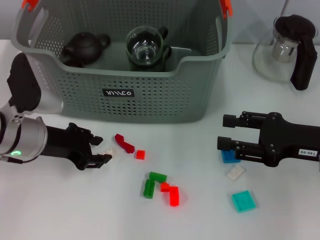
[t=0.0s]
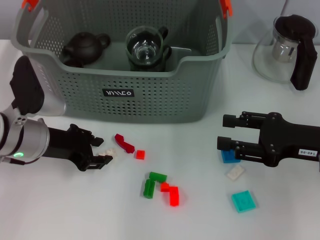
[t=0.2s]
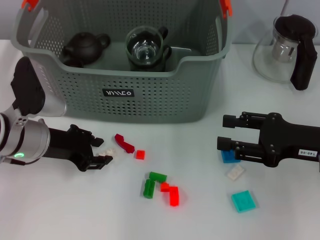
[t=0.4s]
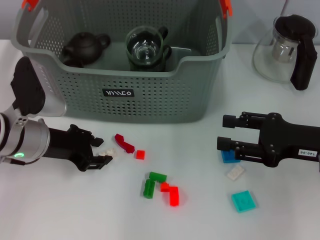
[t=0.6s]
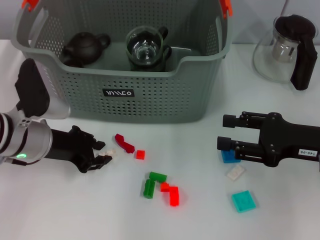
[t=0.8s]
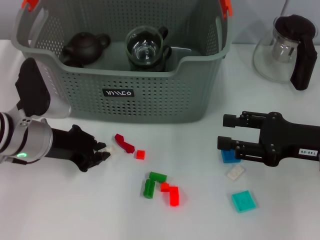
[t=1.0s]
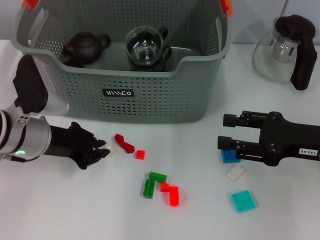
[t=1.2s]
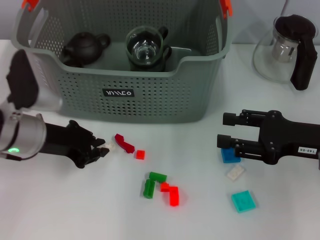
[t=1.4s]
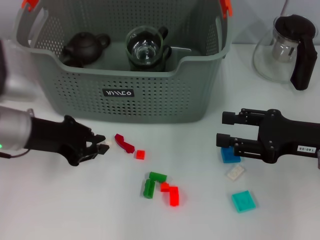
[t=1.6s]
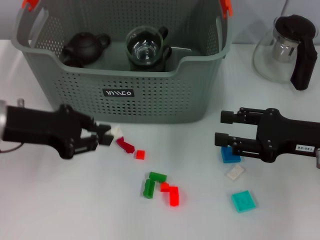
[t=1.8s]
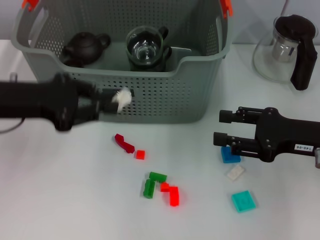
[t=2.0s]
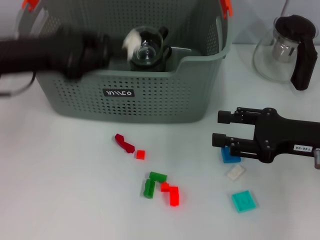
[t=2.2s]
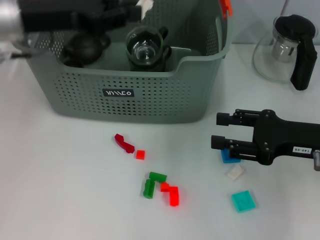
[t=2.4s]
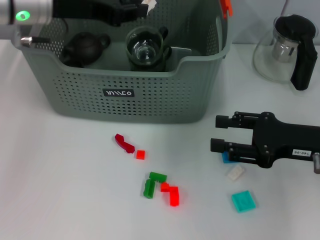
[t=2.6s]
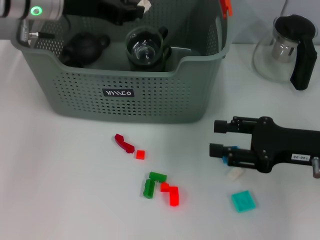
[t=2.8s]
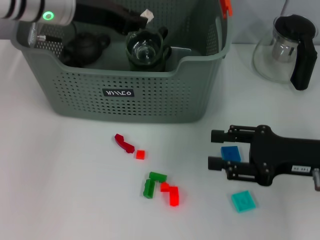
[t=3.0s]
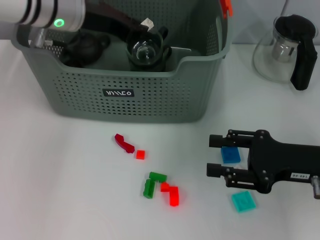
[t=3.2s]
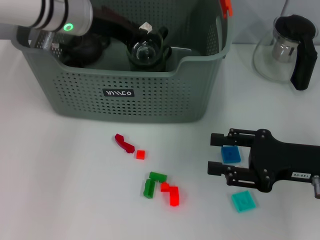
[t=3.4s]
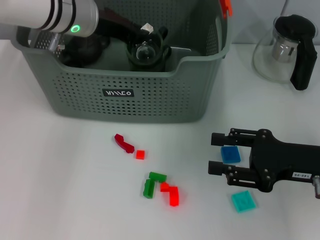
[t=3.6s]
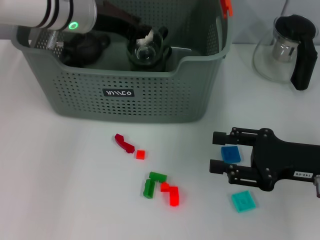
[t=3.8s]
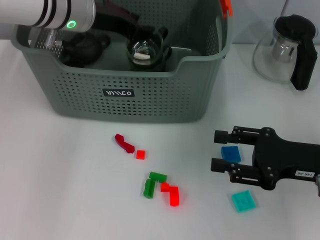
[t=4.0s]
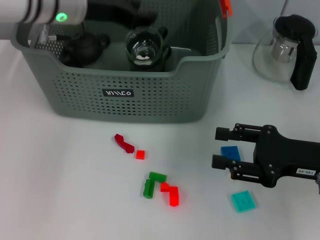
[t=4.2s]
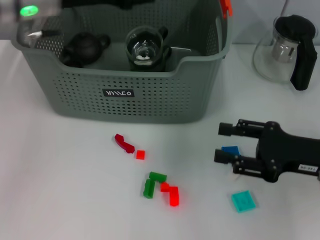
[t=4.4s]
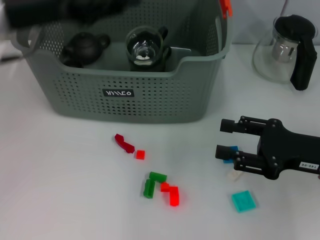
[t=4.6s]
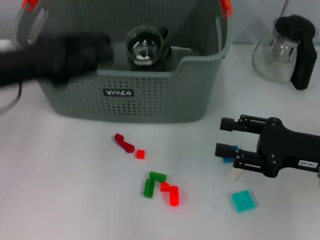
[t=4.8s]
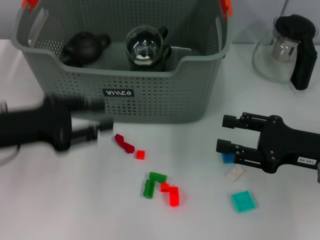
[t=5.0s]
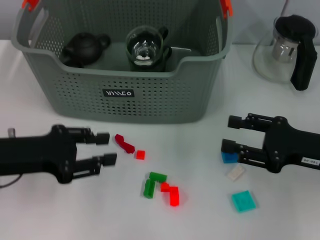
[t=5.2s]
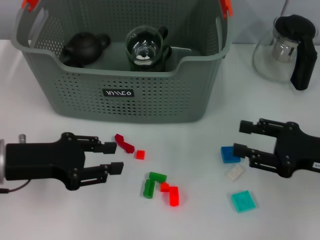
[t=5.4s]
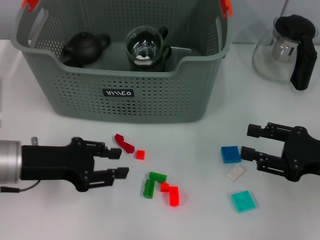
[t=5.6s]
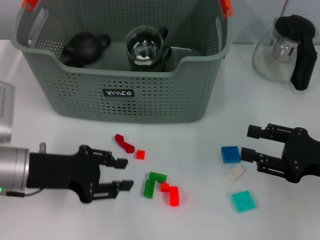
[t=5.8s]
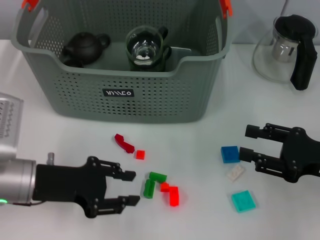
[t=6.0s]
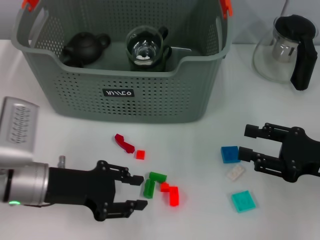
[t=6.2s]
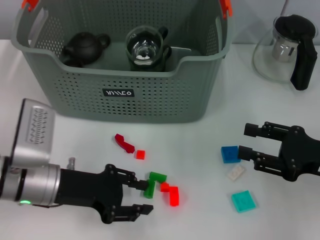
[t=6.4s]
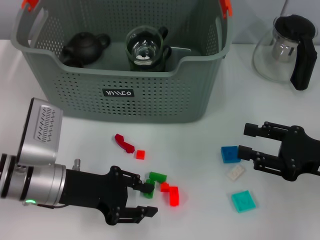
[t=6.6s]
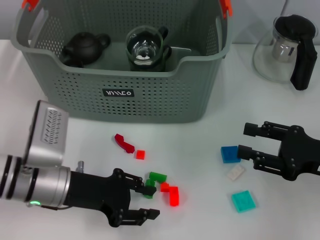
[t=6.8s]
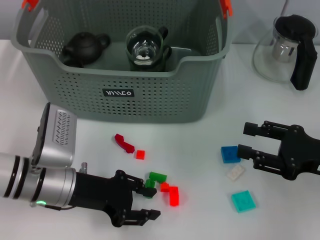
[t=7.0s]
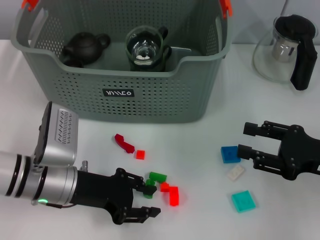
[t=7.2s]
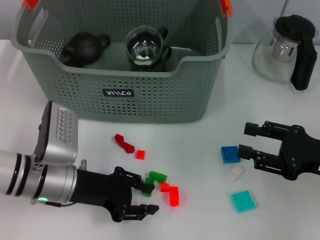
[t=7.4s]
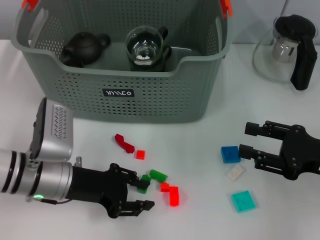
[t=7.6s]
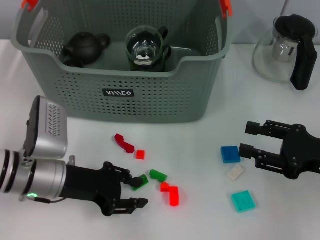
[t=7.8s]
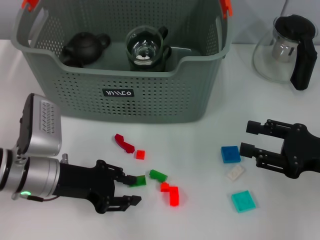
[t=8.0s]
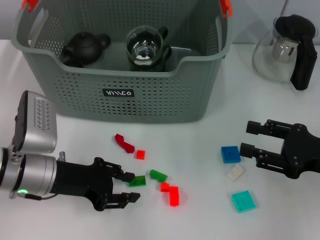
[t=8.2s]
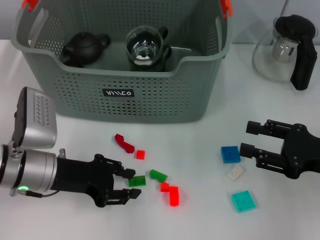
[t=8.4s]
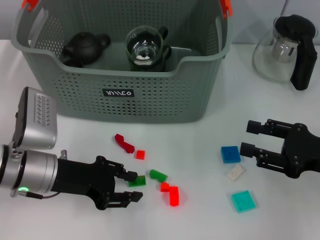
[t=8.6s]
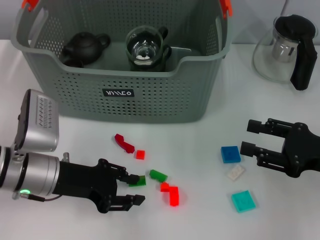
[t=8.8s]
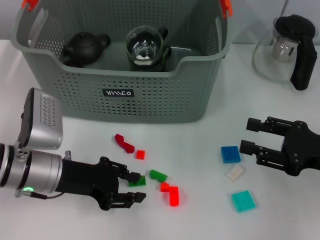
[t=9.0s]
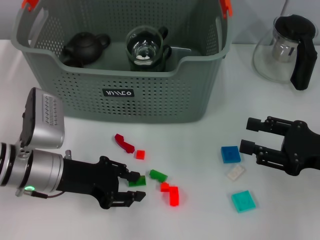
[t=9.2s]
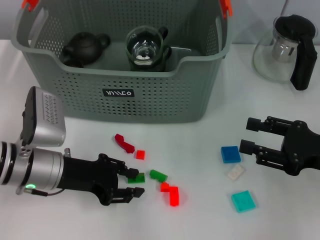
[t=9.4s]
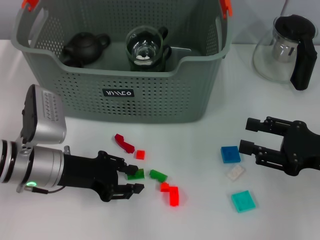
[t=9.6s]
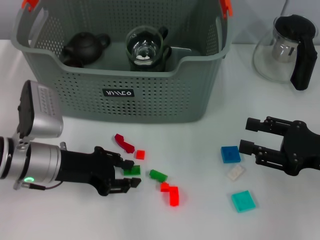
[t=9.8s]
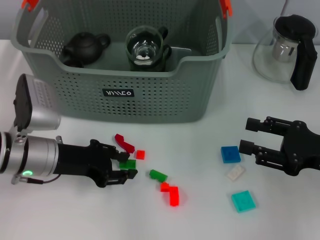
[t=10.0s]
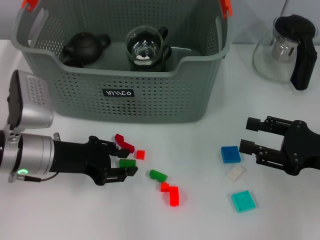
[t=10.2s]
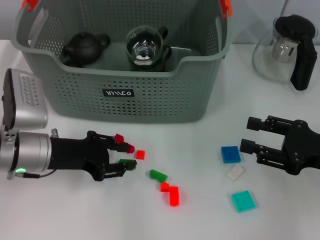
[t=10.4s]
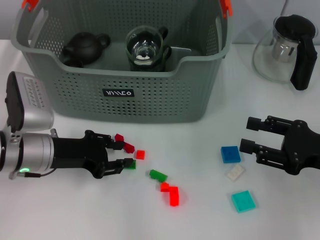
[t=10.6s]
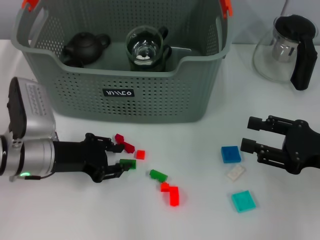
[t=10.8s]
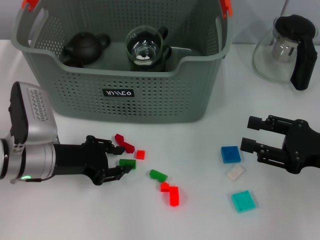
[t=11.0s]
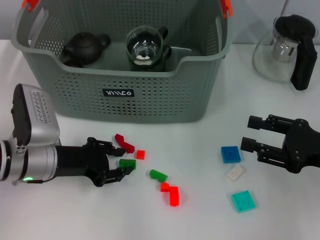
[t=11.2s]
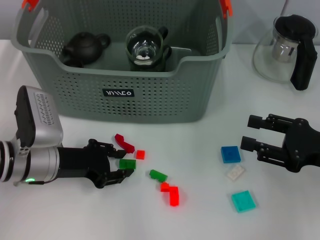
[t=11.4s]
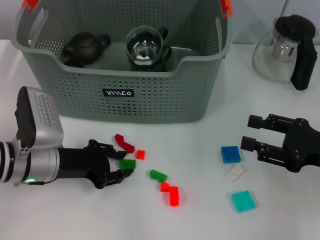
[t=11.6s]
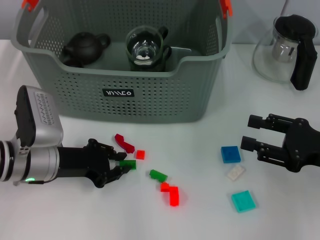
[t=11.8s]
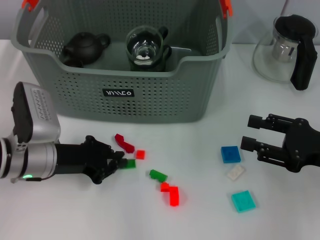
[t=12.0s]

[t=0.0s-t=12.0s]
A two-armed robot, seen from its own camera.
Task of the whole recording: pick up the teacup on the table and place it into the storage bin, pick up the block on the table and place it into the storage bin.
Step, t=1.2s to t=3.8s: Place the white block in the storage box with left gripper.
t=0.0s to t=1.6s: The left gripper closes up.
t=1.6s to t=3.0s: The left gripper shifts some 15 cm forward, upward and to the right.
t=3.0s to t=4.4s: The left gripper ends up approximately 5 cm from where it was, and opens up.
t=4.4s to t=6.0s: The left gripper is displaced downward and backward by roughly 20 cm.
t=6.0s to t=7.6s: The left gripper shifts by some 5 cm.
t=7.6s to t=12.0s: The grippers move only a little.

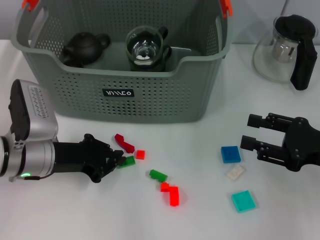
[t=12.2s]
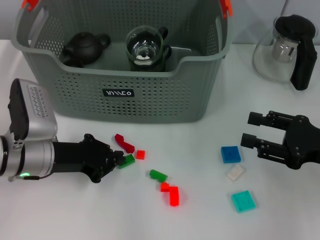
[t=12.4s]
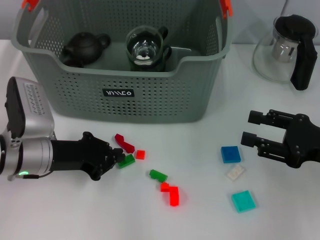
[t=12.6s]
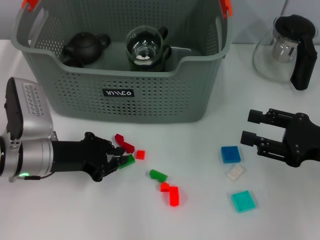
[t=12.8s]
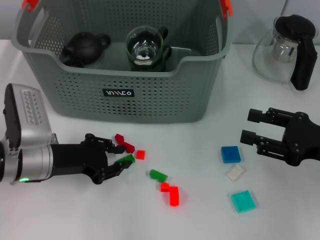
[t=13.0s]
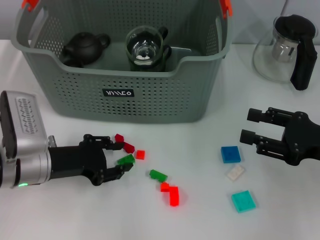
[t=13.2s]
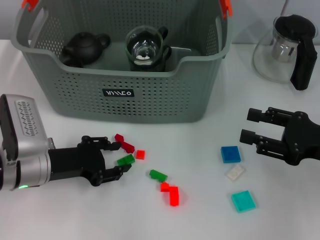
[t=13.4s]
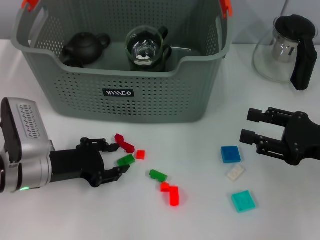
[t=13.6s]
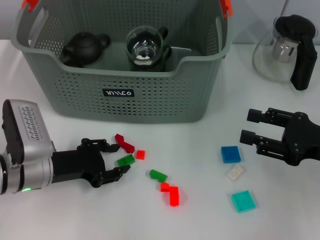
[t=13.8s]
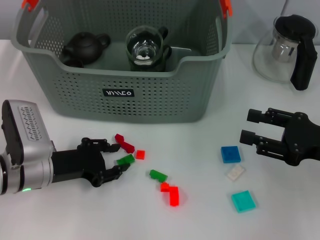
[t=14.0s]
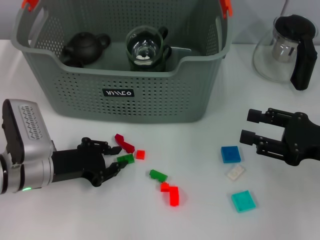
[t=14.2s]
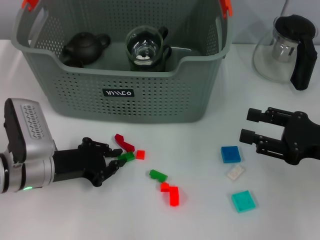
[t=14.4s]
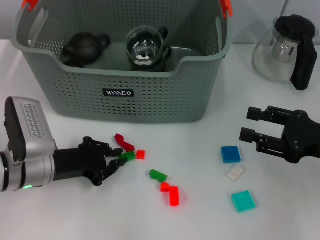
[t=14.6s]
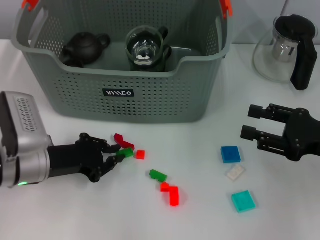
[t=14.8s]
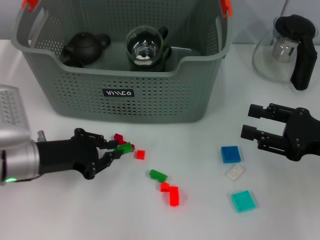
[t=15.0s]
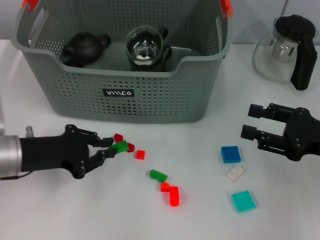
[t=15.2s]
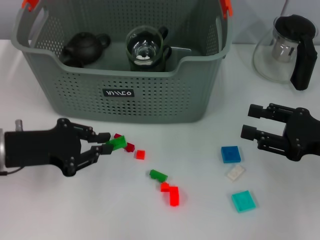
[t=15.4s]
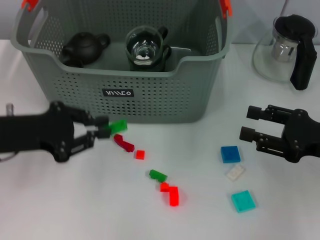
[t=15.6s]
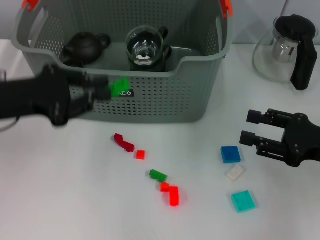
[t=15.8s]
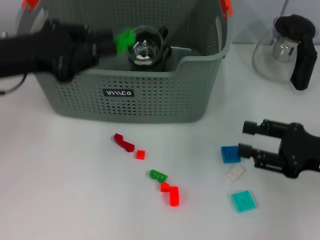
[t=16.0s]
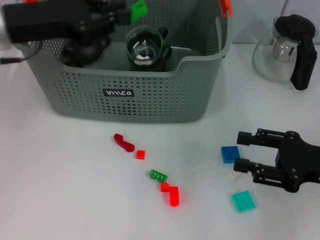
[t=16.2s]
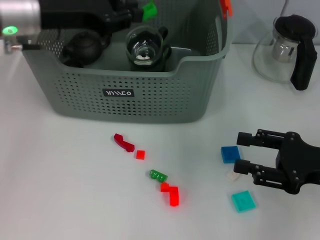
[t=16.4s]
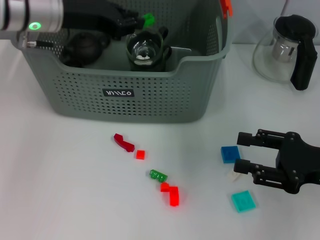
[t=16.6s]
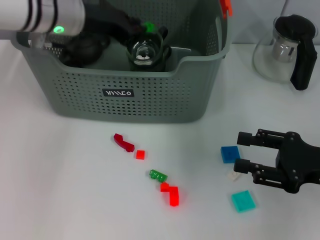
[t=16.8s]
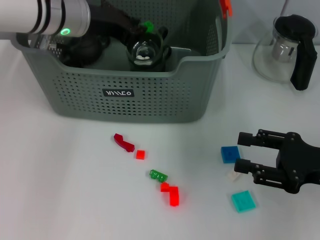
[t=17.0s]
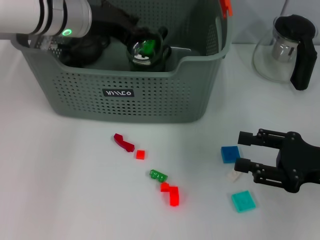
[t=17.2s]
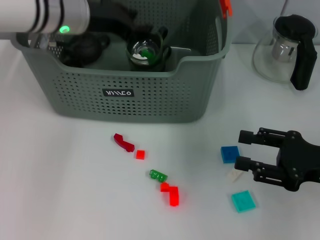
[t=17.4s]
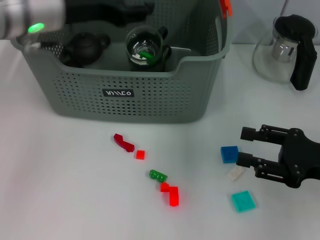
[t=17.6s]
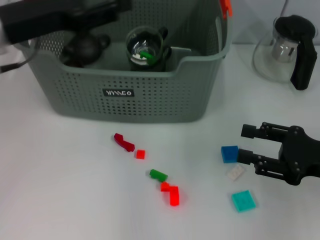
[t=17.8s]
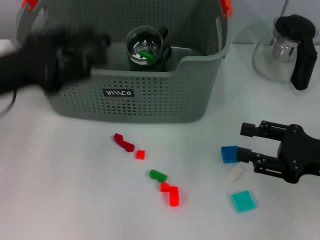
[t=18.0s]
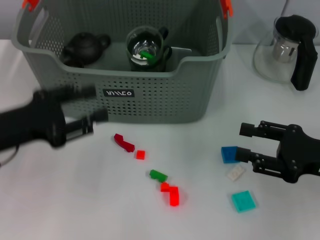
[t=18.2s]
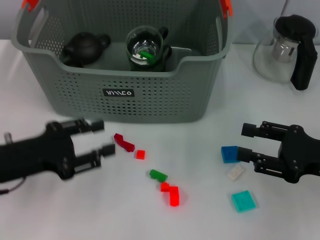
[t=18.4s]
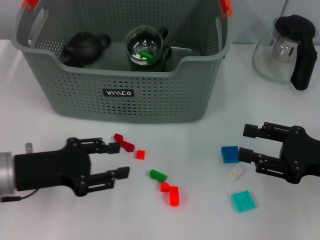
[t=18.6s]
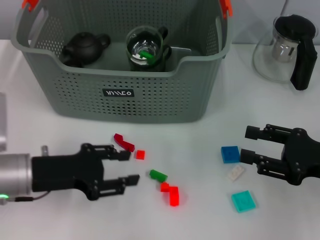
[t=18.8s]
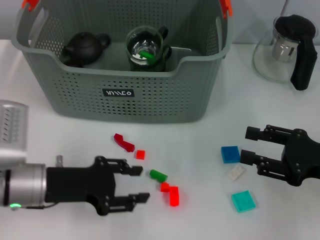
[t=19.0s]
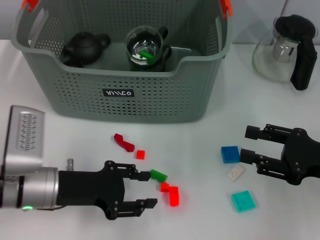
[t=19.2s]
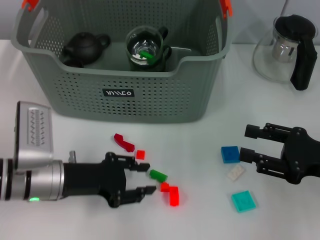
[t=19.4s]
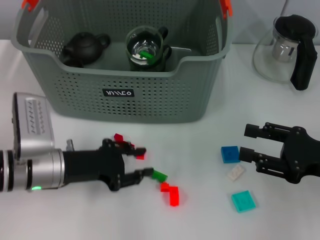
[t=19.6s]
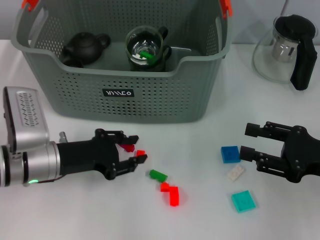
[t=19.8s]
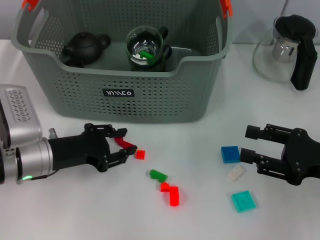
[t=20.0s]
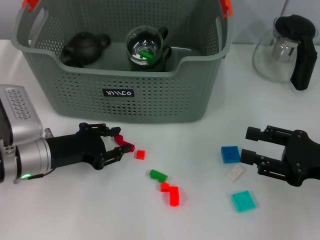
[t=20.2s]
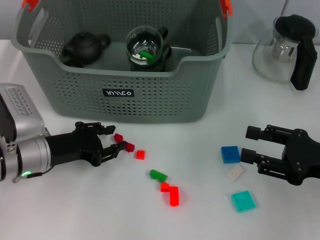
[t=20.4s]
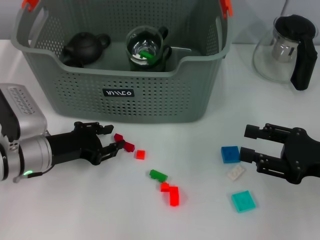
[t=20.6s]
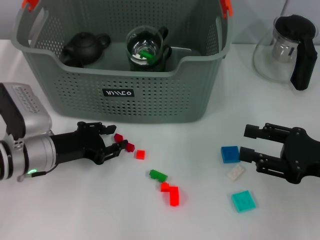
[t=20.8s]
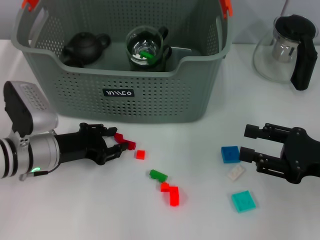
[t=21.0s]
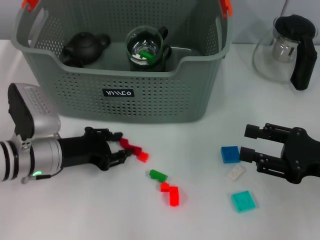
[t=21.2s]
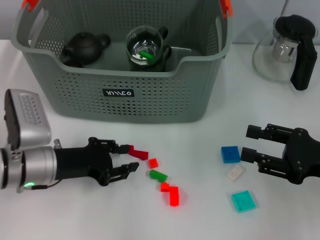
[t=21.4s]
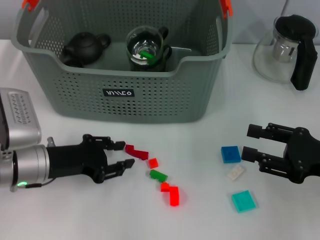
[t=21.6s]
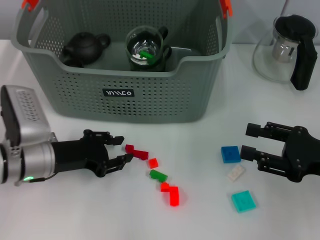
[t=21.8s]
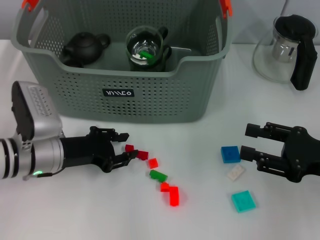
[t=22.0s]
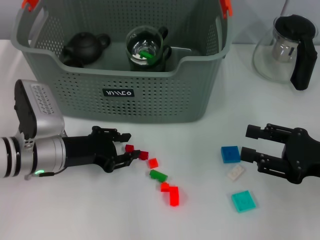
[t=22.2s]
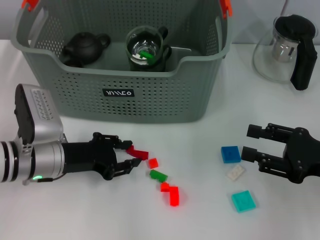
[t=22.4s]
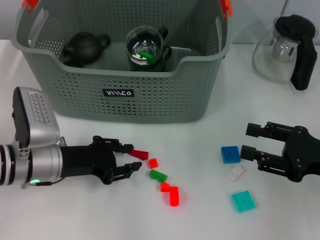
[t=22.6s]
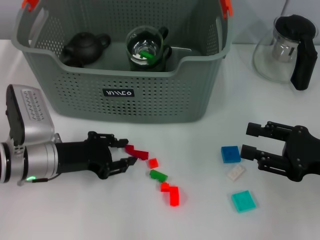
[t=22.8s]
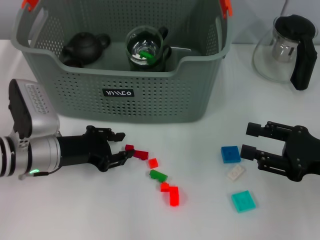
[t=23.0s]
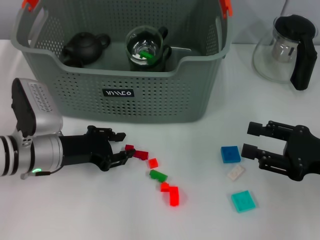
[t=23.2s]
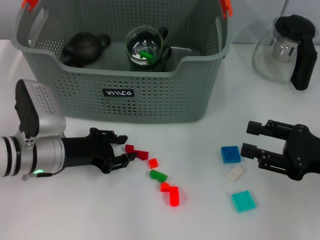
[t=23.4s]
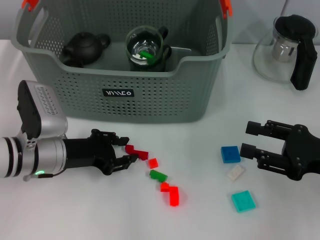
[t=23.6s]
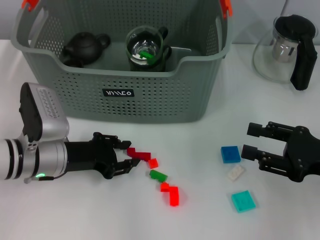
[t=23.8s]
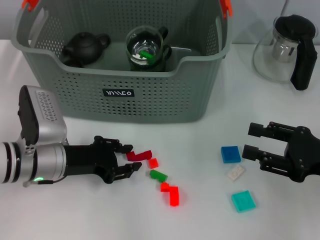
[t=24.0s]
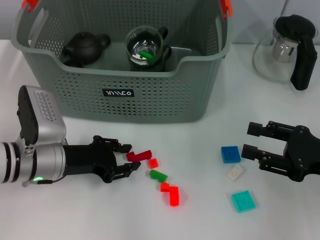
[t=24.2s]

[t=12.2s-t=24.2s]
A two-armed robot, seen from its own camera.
Task of the whole recording: pick up the teacup on the table and place it into the storage bin, pick up the block on the table and place it into the storage bin.
Step, t=12.2s to t=14.4s: Grasp the green block with left gripper.
Step, t=14.6s to t=17.2s: Place the green block in the storage box with left gripper.
t=12.2s to t=13.8s: The left gripper opens its fingers.
t=13.8s to t=15.2s: The left gripper ends up approximately 5 cm from where it was, and closes its fingers.
t=15.2s to t=16.6s: The left gripper moves forward, upward and to the right, about 20 cm.
t=16.6s to t=18.2s: The left gripper is displaced backward, downward and to the left by some 20 cm, and opens up.
t=18.2s to t=19.8s: The left gripper moves downward and to the right, approximately 10 cm.
t=19.8s to t=24.2s: There are only small adjustments of the grippers.
